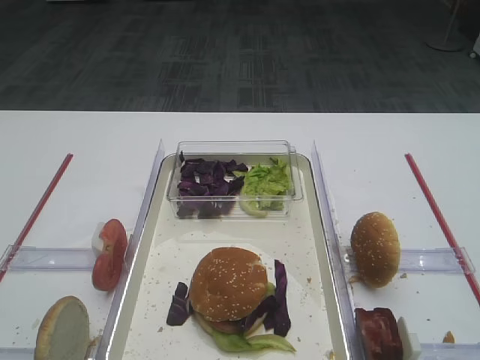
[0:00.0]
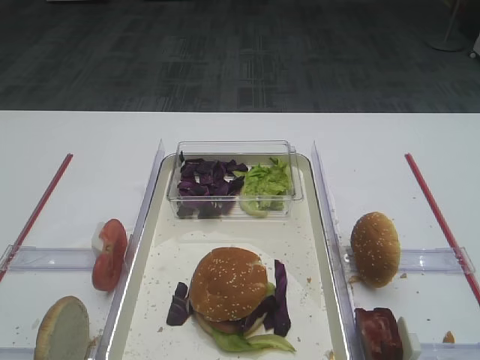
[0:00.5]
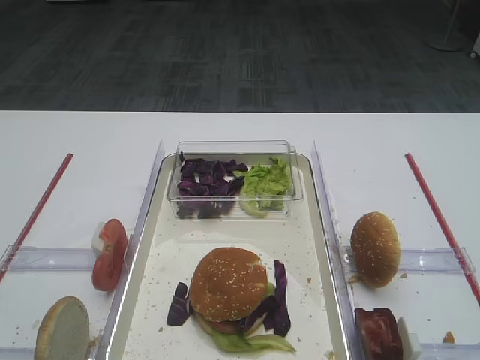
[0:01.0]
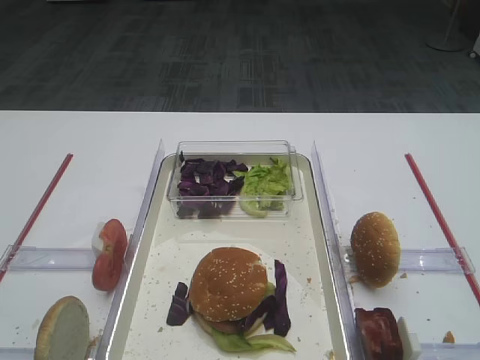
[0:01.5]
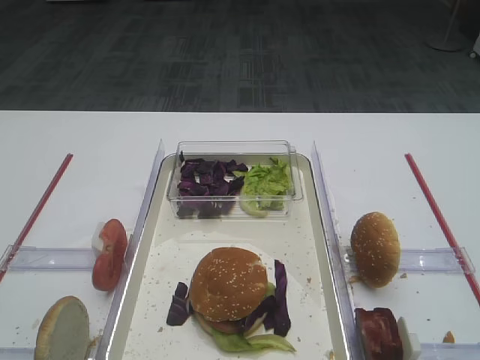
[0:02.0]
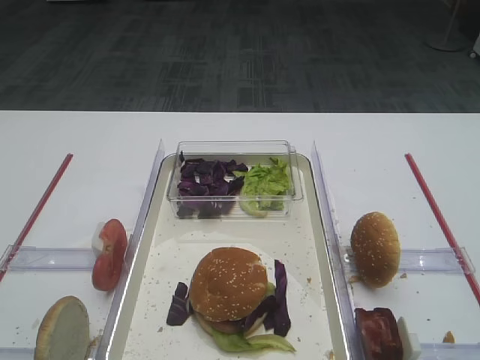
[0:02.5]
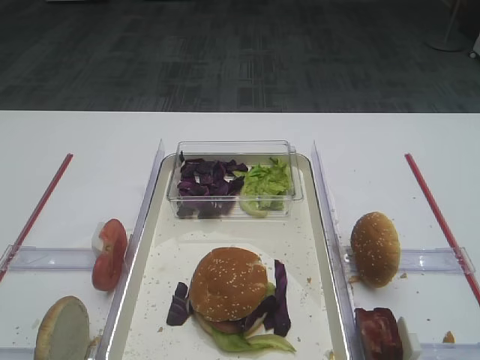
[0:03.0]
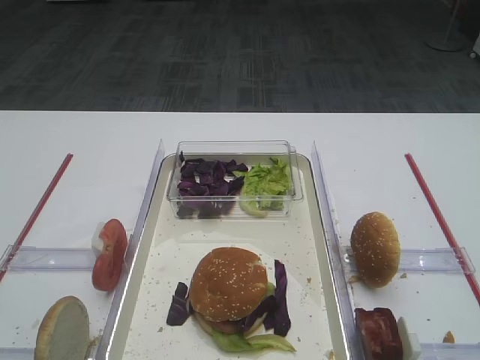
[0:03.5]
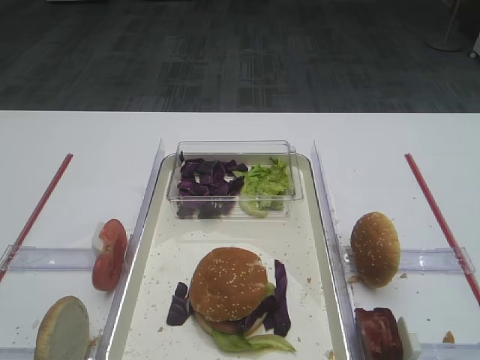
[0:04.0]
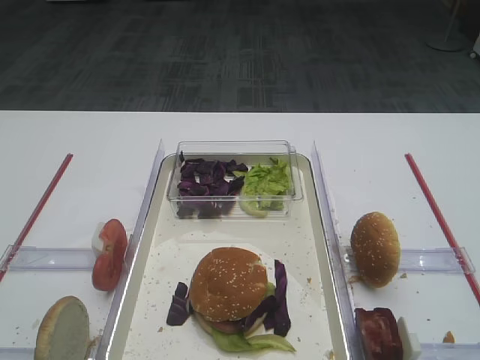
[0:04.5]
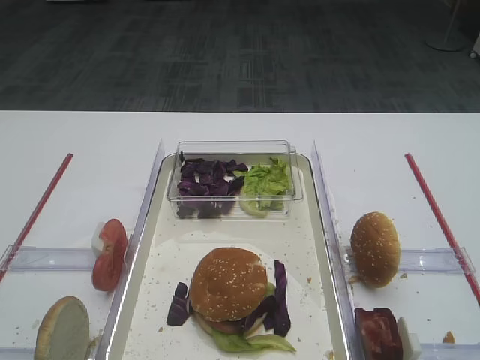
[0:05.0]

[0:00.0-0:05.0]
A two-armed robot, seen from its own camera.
0:00.0 to 0:05.0: Both grippers stay about where they are.

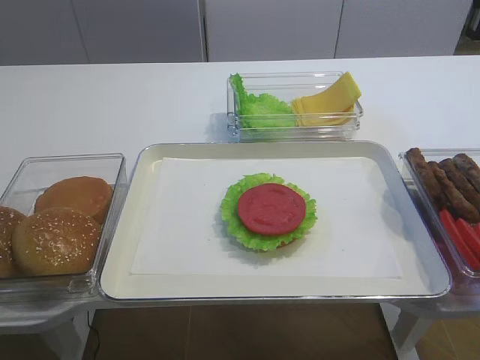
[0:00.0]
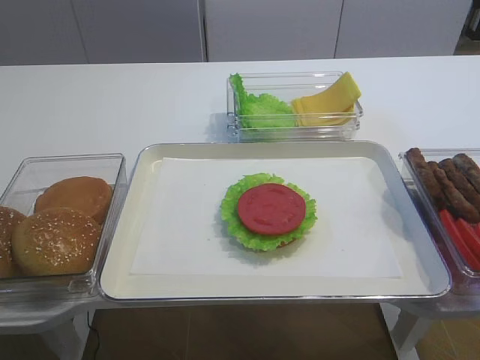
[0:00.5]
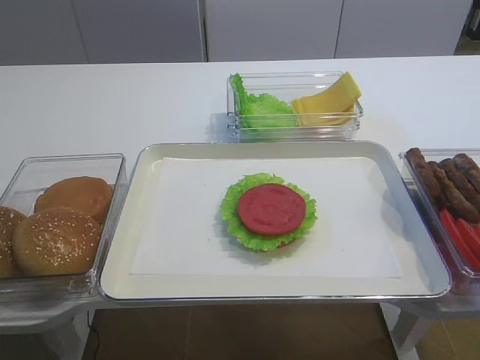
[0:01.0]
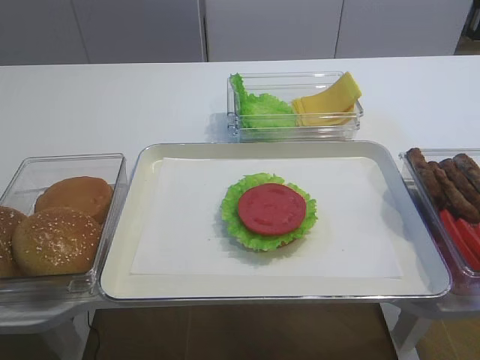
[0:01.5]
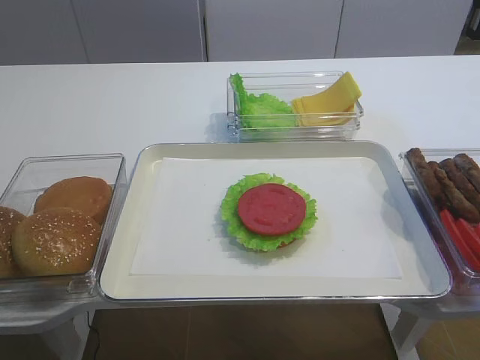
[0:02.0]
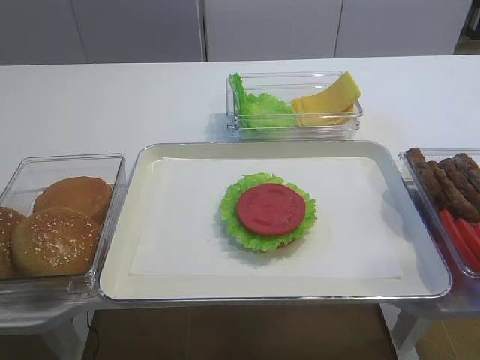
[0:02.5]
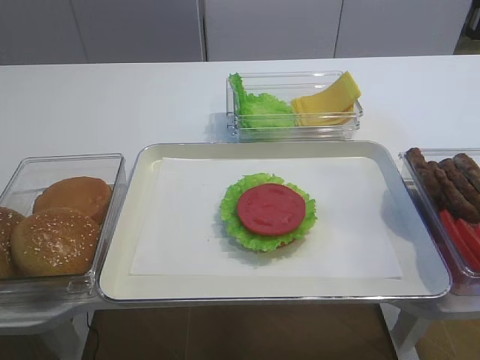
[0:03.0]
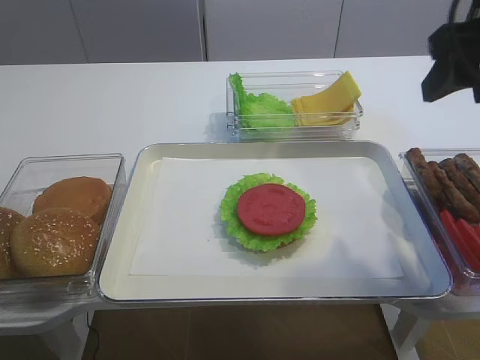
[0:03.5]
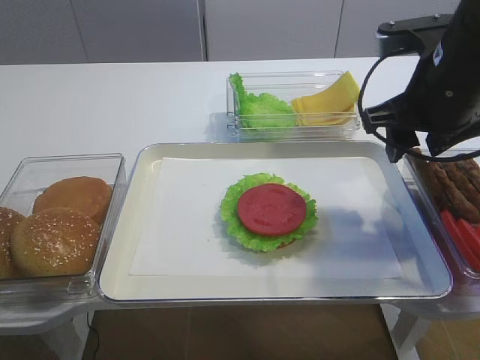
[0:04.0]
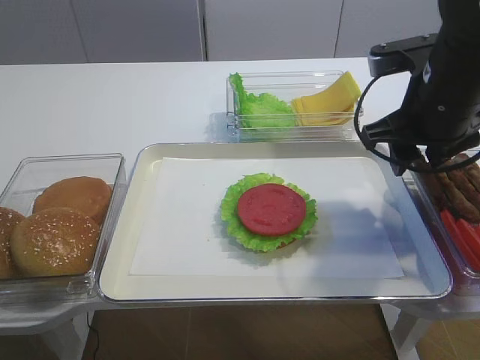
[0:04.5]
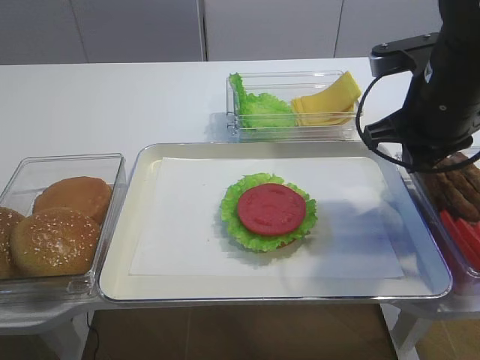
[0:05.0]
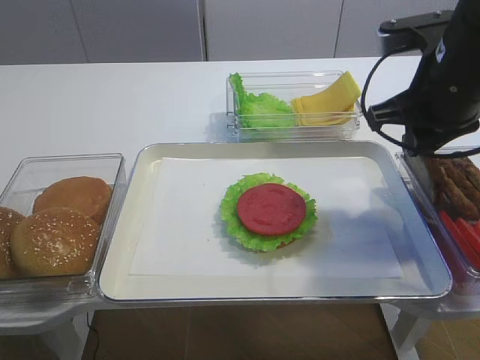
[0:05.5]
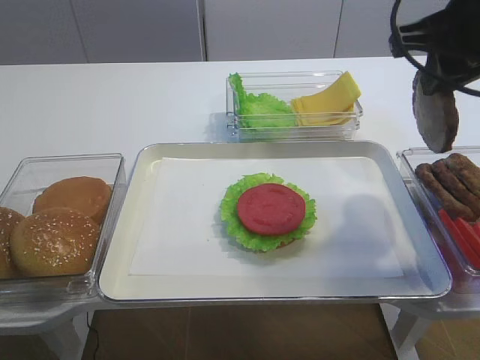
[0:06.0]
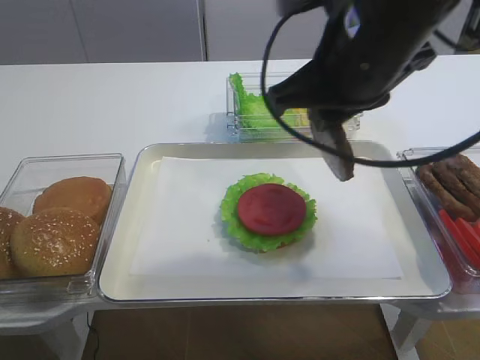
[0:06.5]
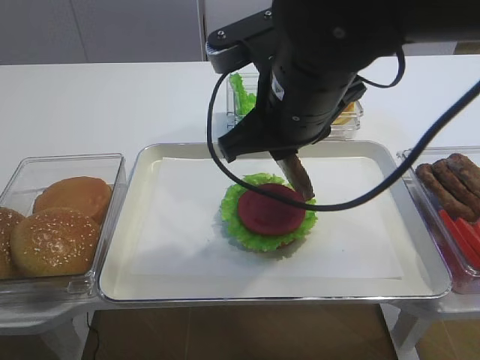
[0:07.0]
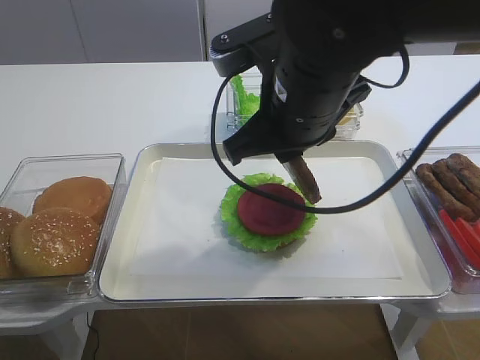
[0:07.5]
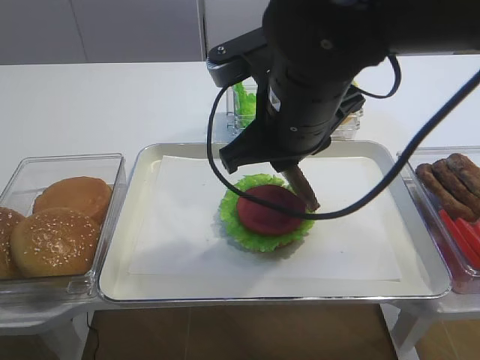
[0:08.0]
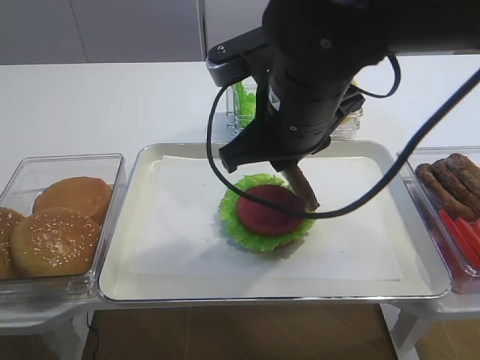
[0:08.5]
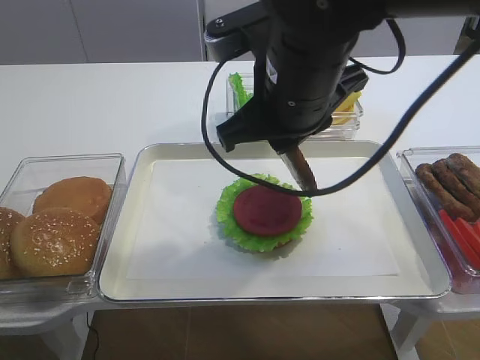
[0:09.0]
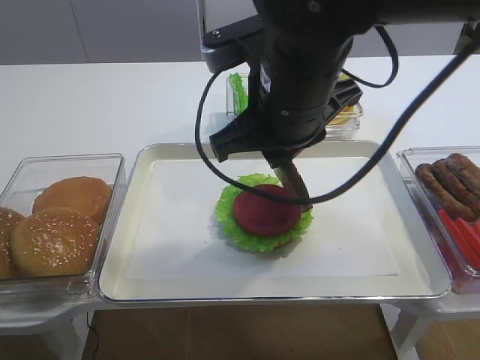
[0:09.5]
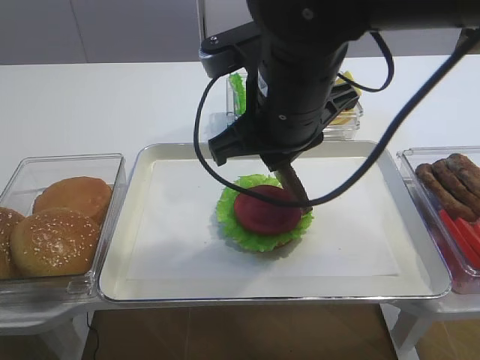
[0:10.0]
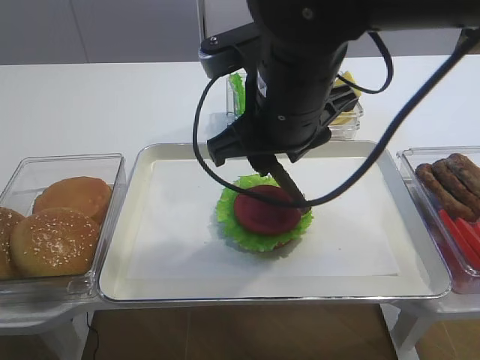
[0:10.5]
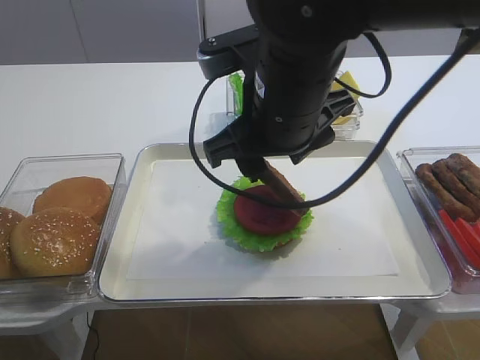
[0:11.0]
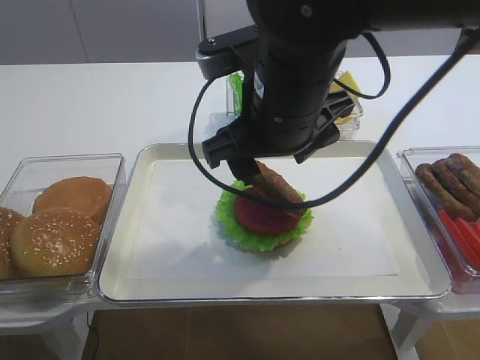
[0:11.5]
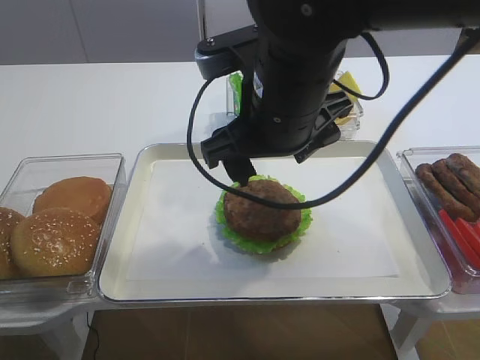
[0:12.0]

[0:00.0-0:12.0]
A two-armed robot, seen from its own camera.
Step, 0:00.0 to 0:05.5: Pick up the cutlet with the right gripper.
0:02.0 to 0:04.0: The right gripper heads forward, covering about 30 cm.
0:04.0 to 0:06.0: The right gripper shifts some 5 cm upward, and closes.
0:06.0 to 0:08.0: The right gripper moves to the left and downward, about 15 cm.
0:08.0 to 0:10.0: The grippers move only a little.
0:10.0 to 0:12.0: The right gripper opens.

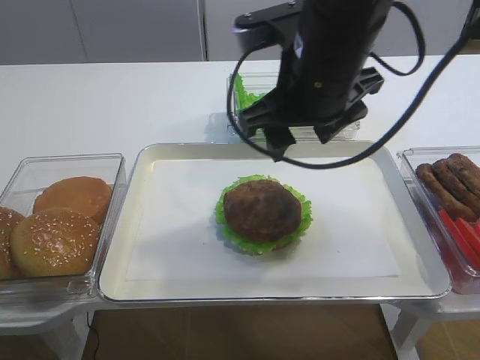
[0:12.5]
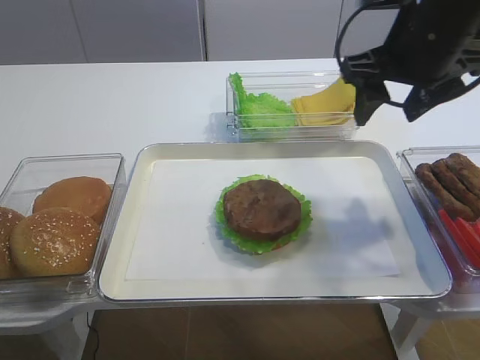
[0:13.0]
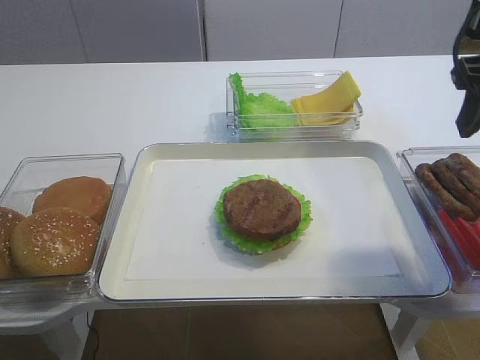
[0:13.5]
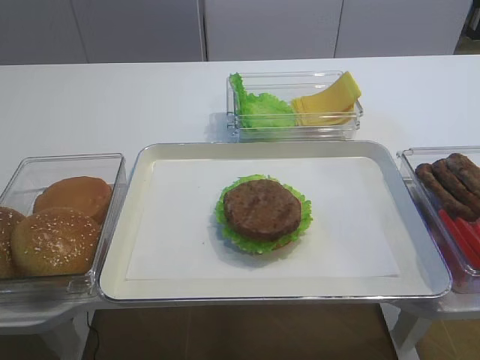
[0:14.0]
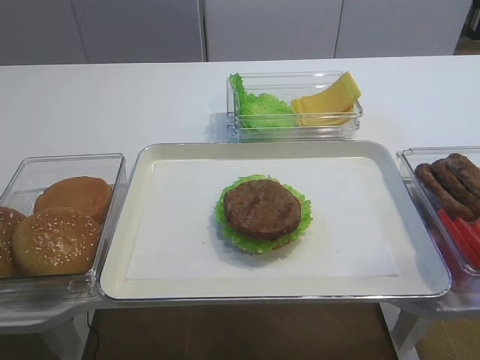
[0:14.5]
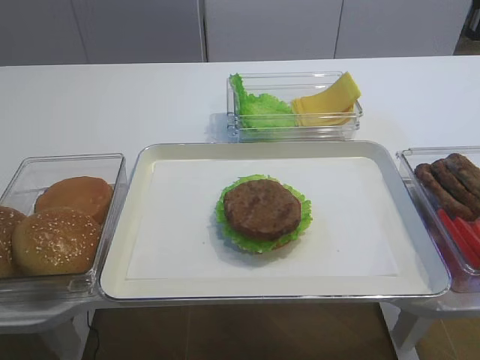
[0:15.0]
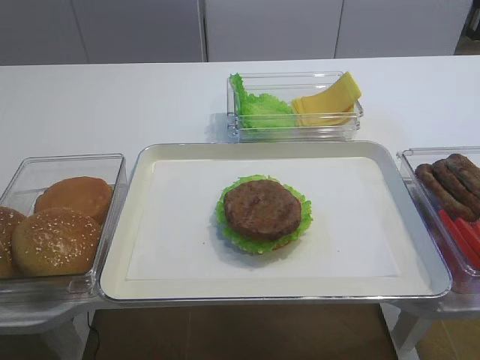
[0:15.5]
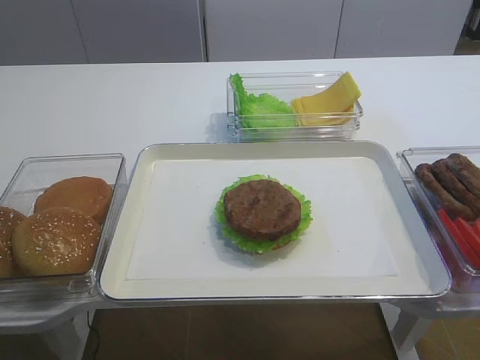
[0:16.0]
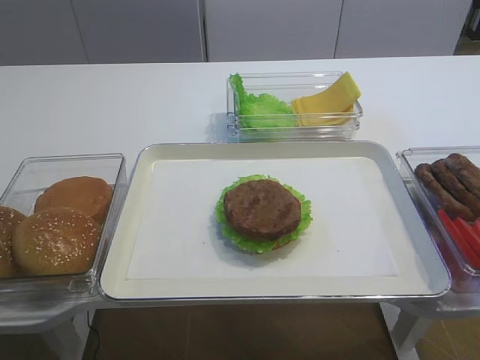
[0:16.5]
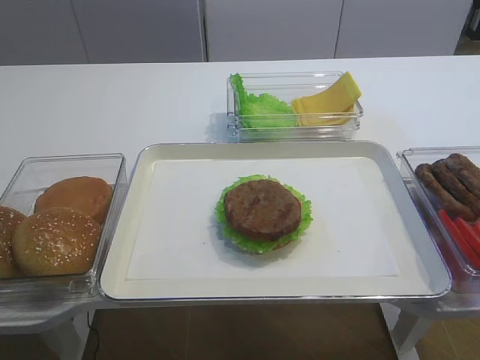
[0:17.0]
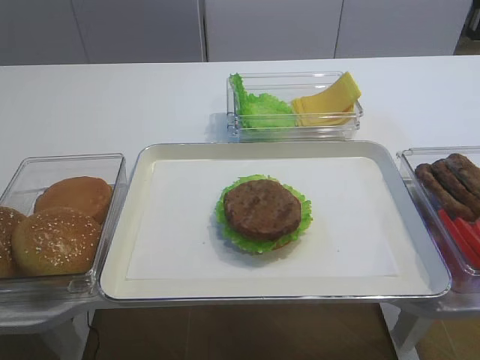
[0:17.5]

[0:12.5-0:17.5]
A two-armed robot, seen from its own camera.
0:12.5 to 0:15.0: The right gripper is displaced backward and to the right by roughly 40 cm.

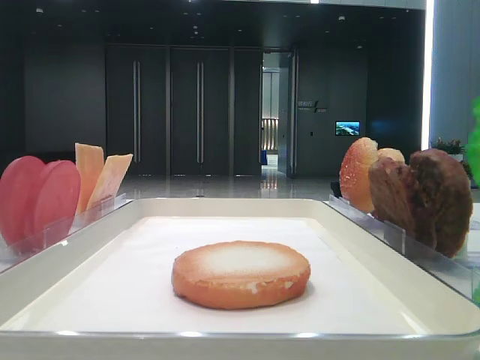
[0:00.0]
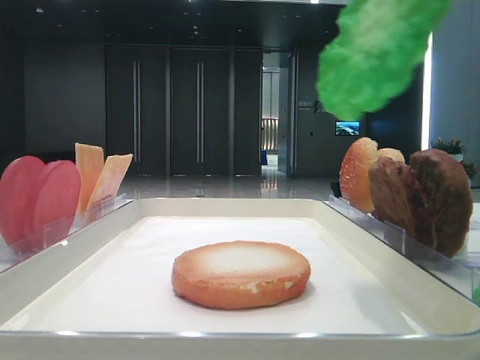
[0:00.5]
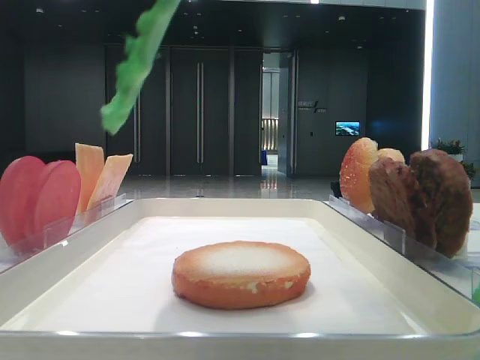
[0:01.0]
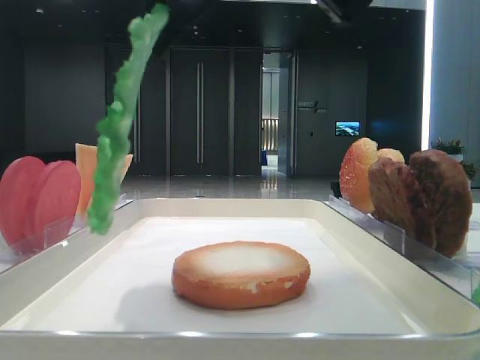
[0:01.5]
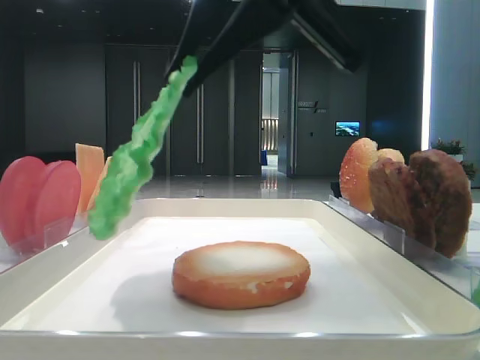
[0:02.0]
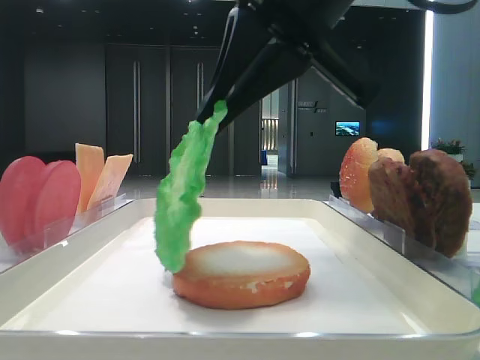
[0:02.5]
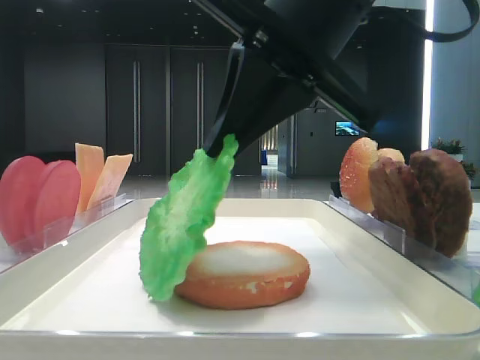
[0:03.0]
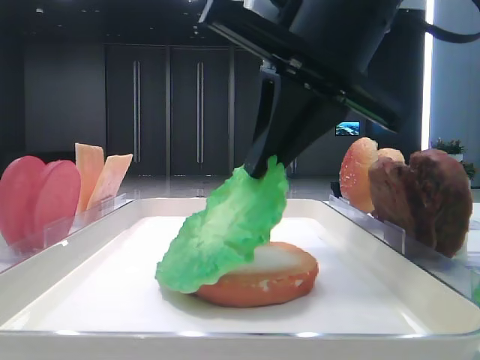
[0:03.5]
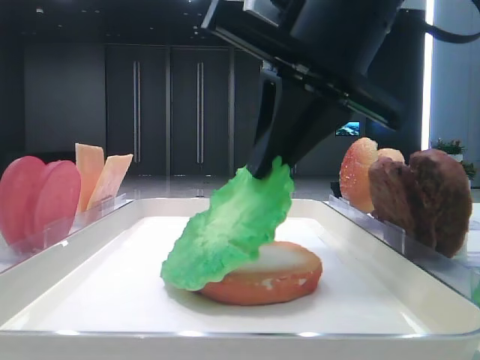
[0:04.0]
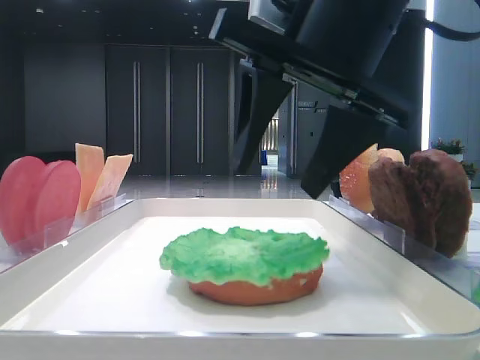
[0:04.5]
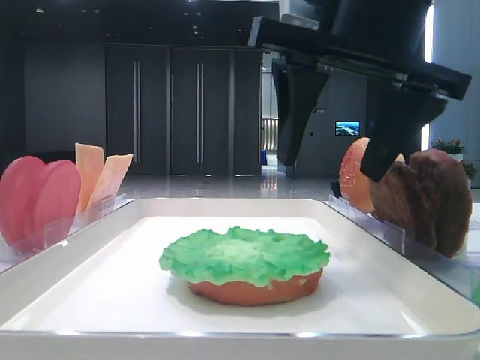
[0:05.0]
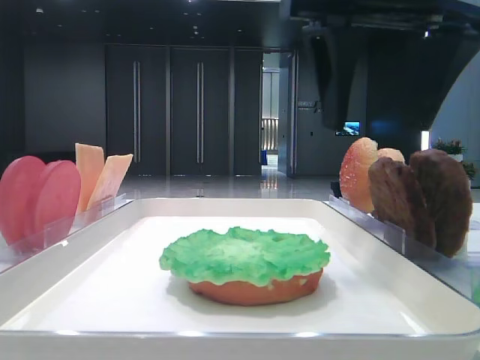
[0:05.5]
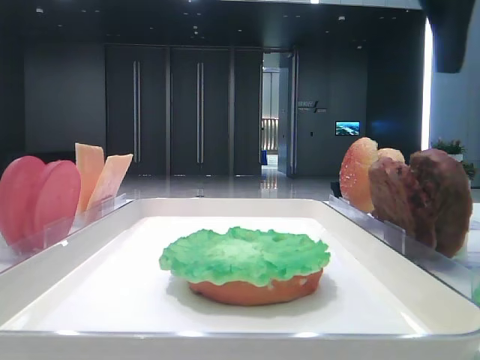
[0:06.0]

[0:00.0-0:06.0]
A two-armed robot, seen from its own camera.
Step, 0:00.0 to 0:04.0: Place the lettuce leaf on the bread slice with the right hand.
0:00.0 to 0:02.0: The right gripper is displaced to the left by some 15 cm.
0:02.0 to 0:04.0: The right gripper changes place by about 5 cm.
0:04.0 to 0:06.0: The right gripper goes about 15 cm to the right and upward, and opens.
